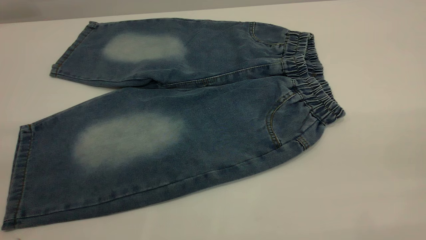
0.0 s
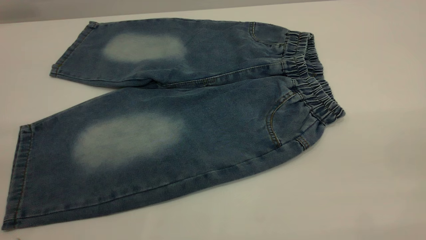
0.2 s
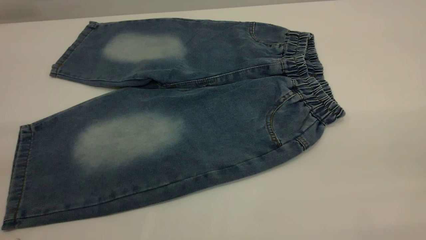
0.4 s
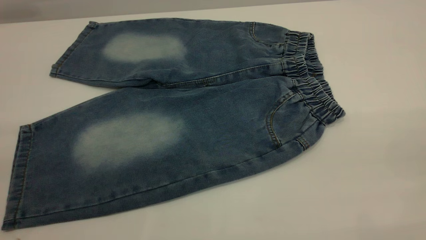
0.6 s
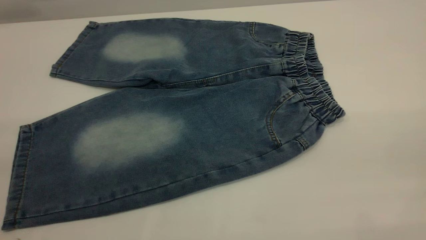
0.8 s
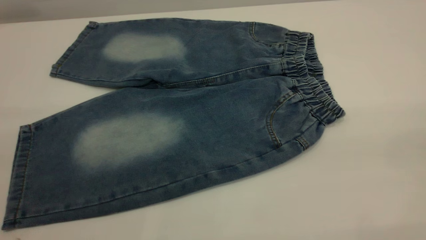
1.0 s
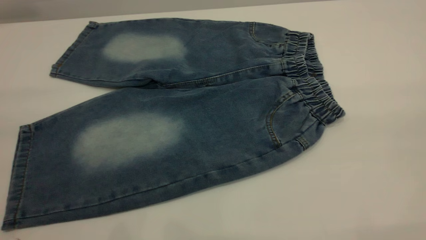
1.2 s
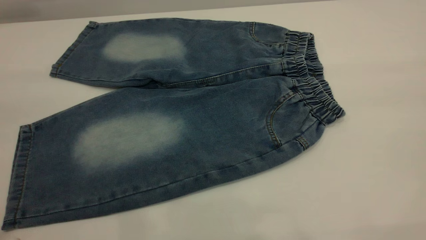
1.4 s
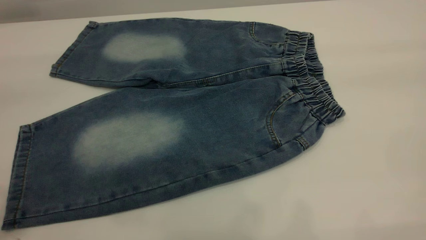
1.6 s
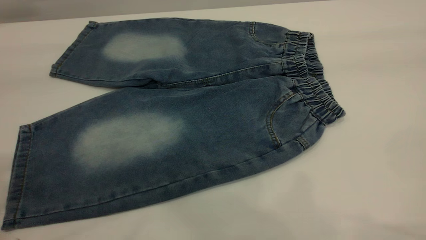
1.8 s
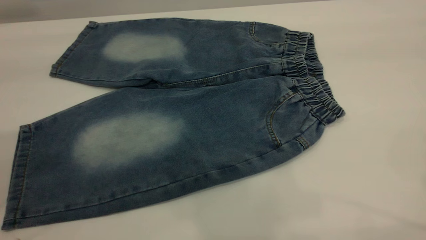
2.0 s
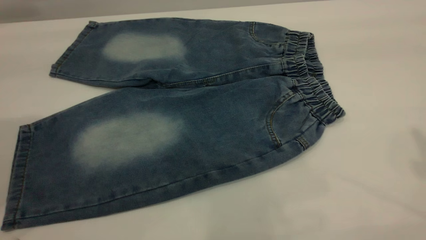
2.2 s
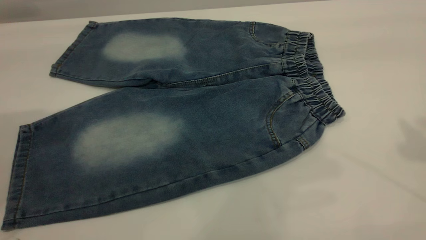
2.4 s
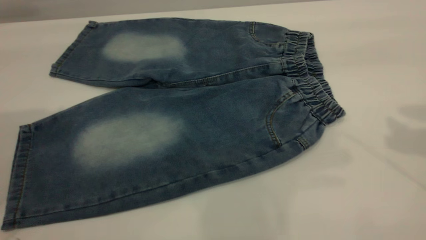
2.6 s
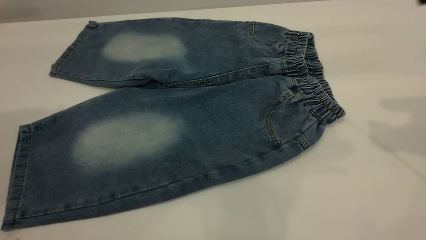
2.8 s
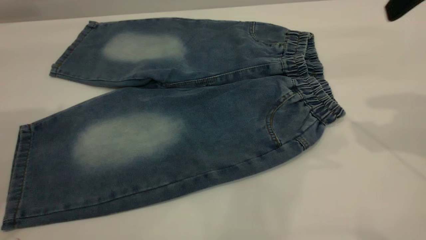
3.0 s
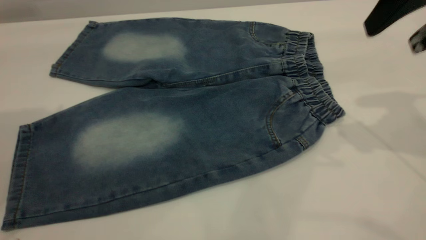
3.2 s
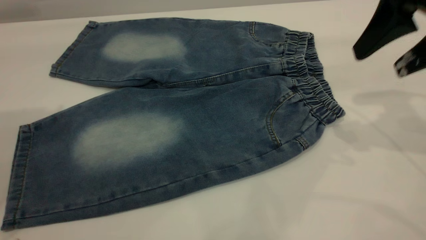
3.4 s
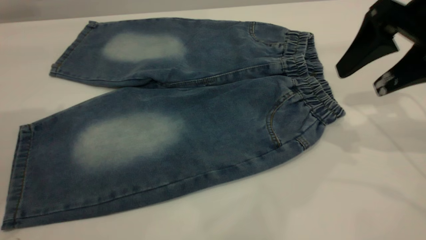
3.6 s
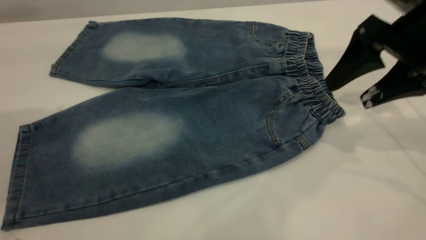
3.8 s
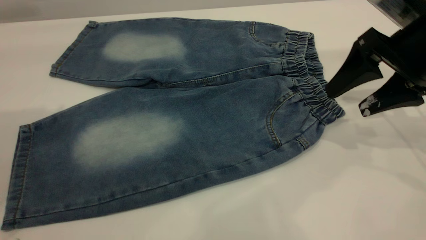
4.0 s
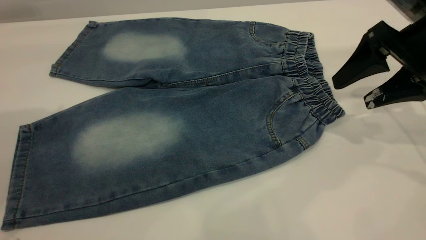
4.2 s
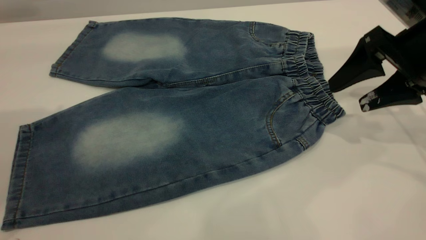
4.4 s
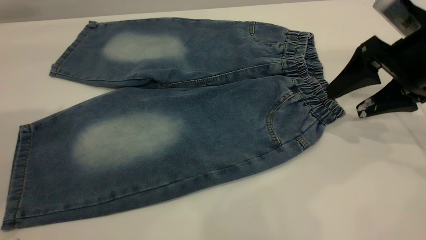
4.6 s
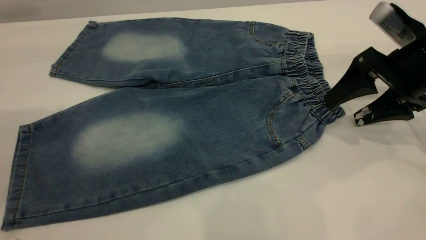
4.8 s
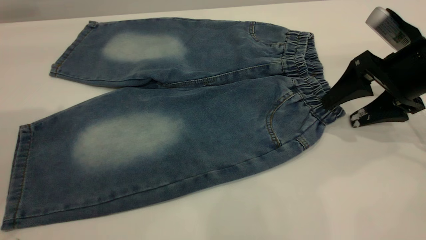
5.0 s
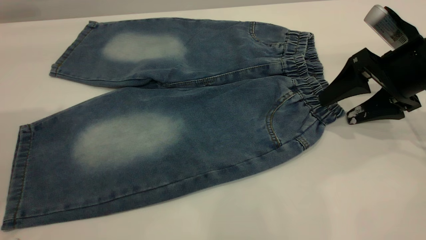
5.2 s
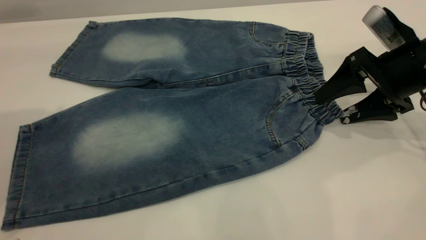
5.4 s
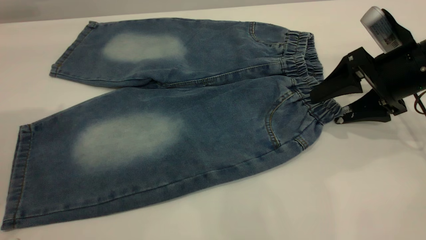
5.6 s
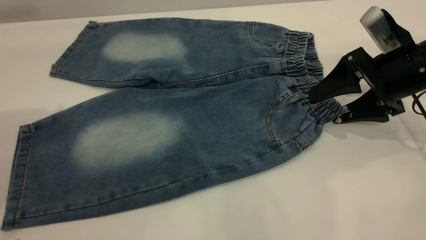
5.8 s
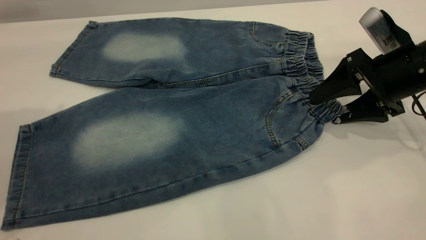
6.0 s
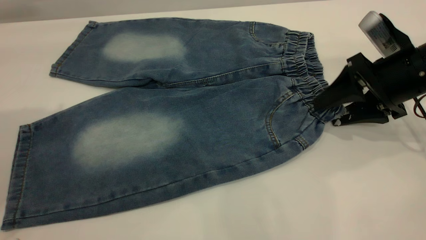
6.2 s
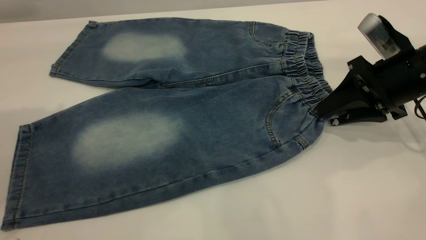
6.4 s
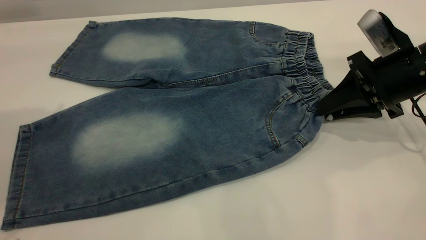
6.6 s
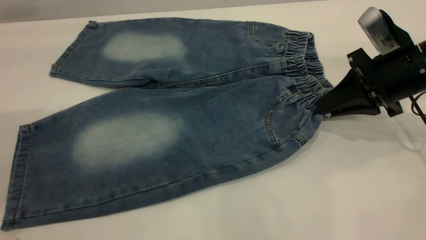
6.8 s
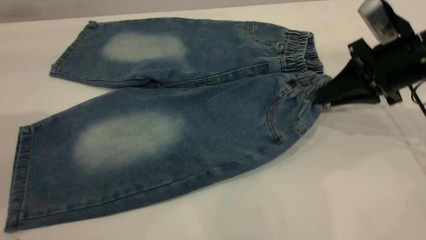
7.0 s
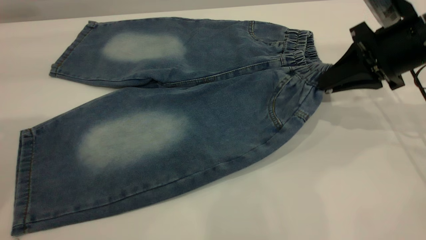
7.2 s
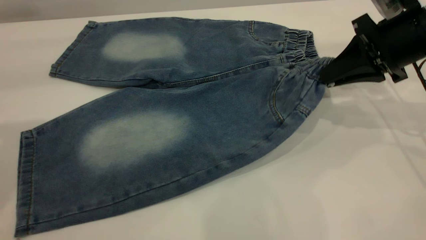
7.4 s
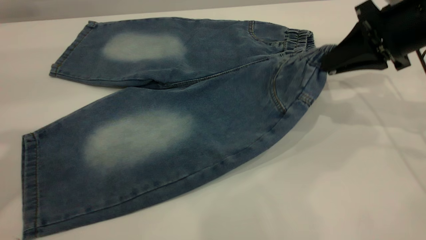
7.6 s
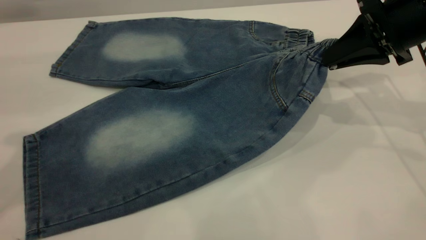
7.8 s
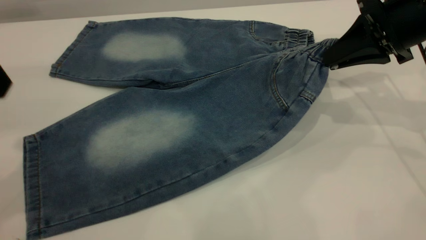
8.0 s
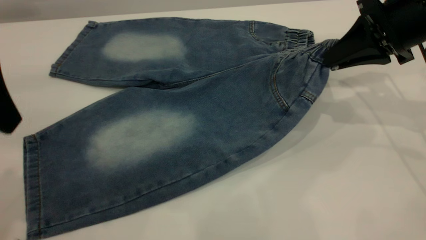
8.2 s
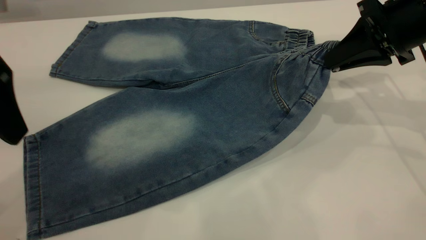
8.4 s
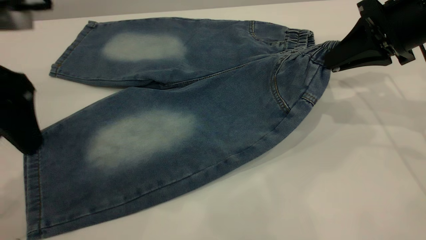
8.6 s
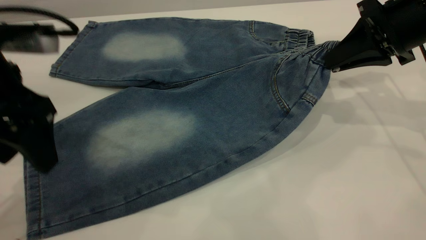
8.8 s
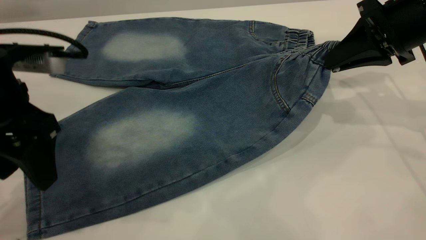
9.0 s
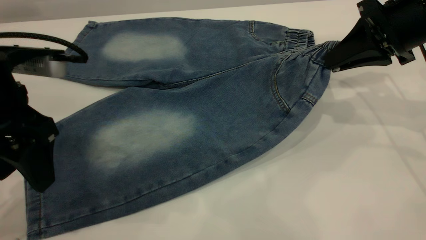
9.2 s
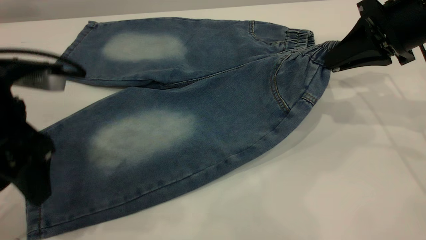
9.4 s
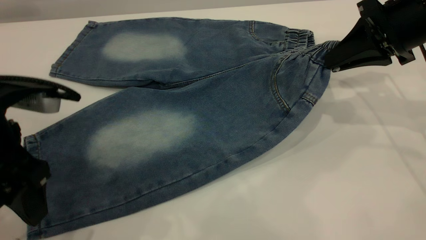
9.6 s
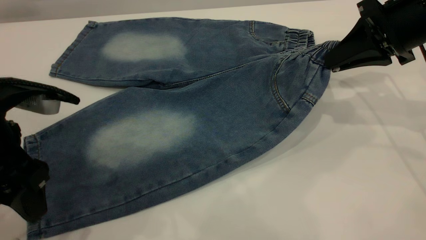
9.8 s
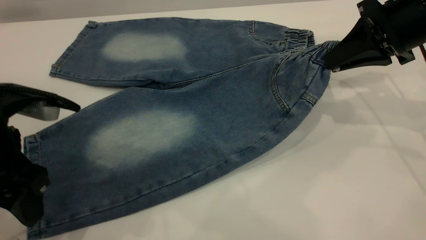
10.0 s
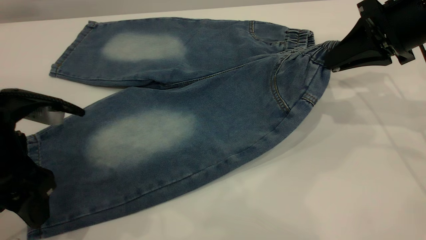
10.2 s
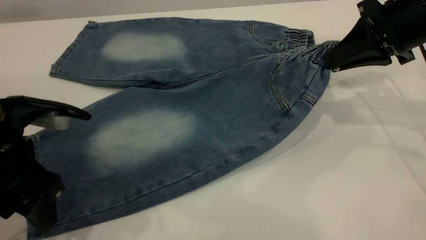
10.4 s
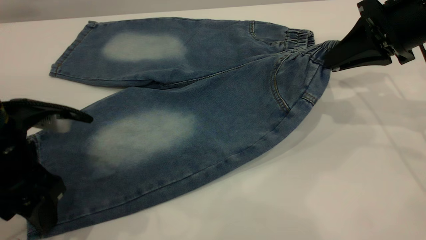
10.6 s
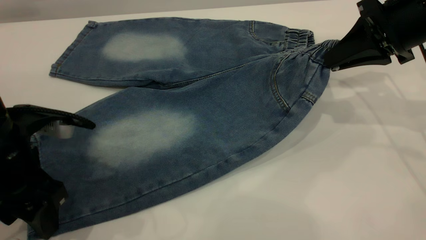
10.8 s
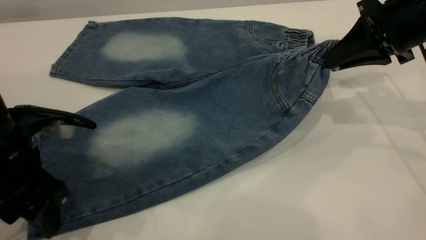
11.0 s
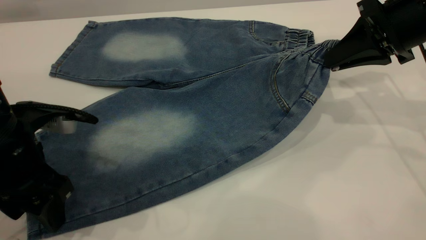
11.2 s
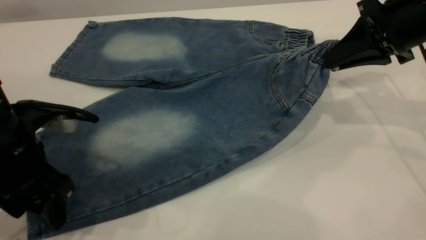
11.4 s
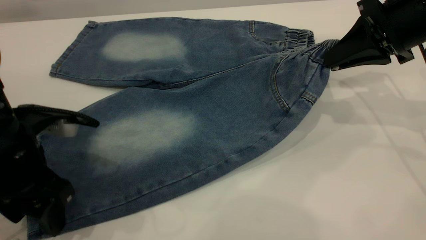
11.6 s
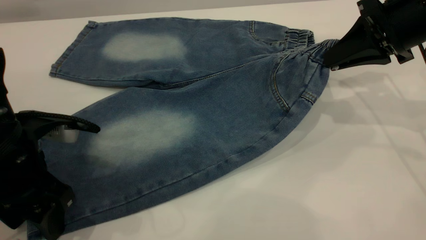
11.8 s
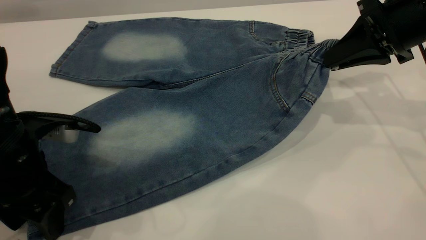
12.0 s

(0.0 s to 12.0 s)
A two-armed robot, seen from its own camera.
1.6 s - 3.0 s: The right gripper moves forward and downward, some 25 cm.
3.0 s - 4.4 s: The right gripper shifts approximately 15 cm downward.
4.4 s - 6.0 s: There are only small adjustments of the grippers.
6.0 s - 7.6 s: The left gripper shifts by roughly 5 cm. Meanwhile the right gripper heads upward, covering some 5 cm, and closes its fingers.
7.6 s - 9.0 s: The left gripper moves downward and to the right, roughly 15 cm.
9.0 s - 10.4 s: The left gripper is displaced downward by some 5 cm.
10.4 s - 12.0 s: The grippers make only small movements.

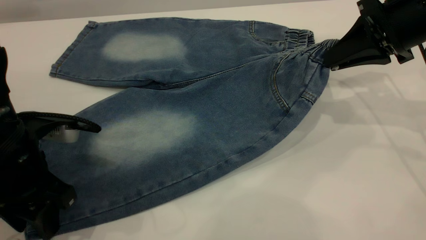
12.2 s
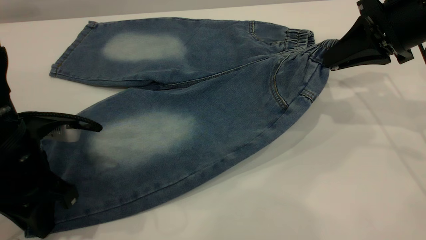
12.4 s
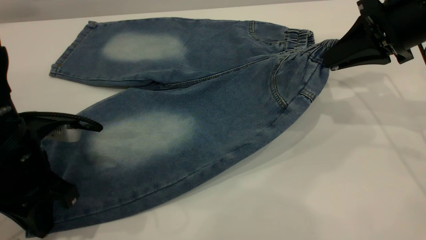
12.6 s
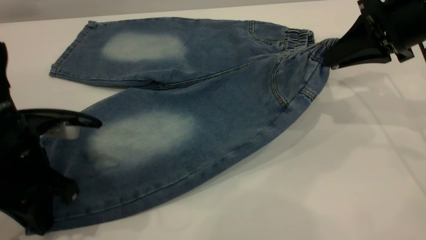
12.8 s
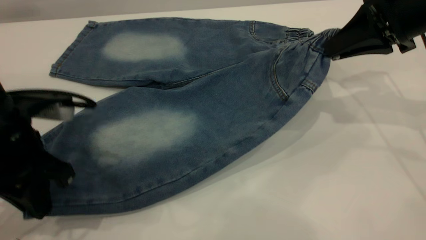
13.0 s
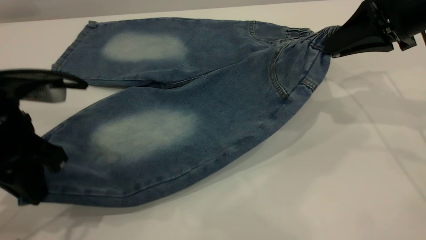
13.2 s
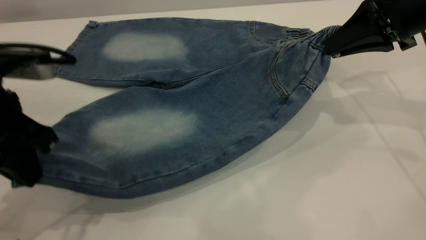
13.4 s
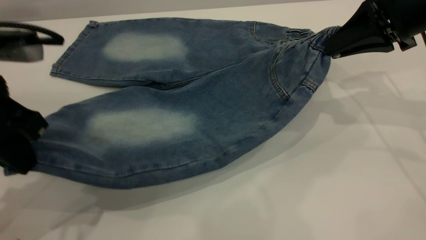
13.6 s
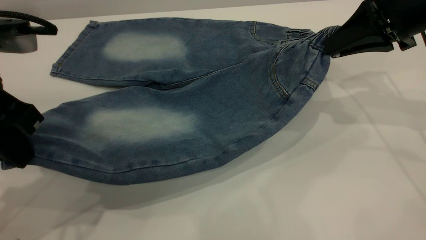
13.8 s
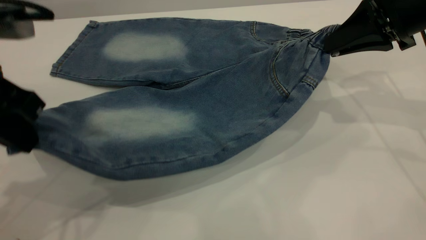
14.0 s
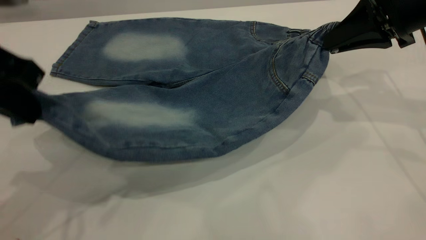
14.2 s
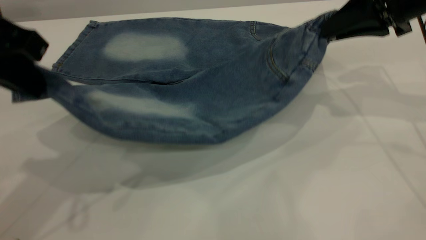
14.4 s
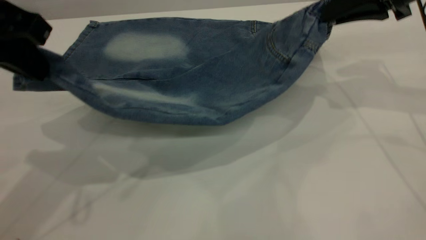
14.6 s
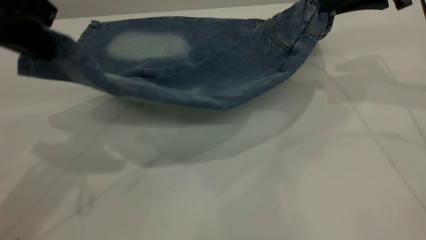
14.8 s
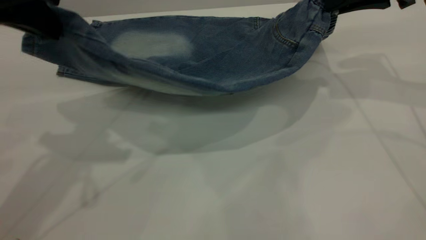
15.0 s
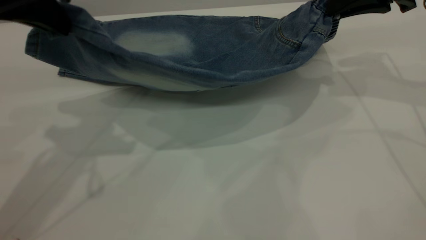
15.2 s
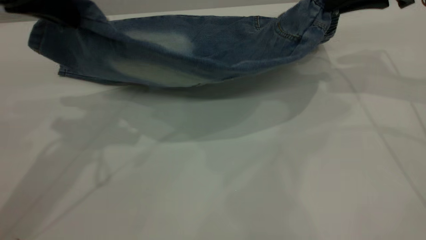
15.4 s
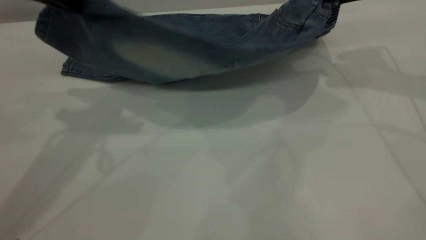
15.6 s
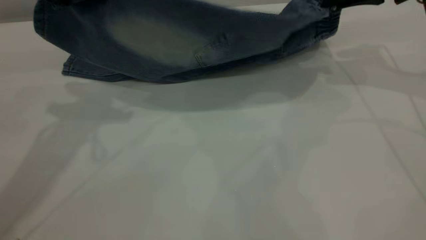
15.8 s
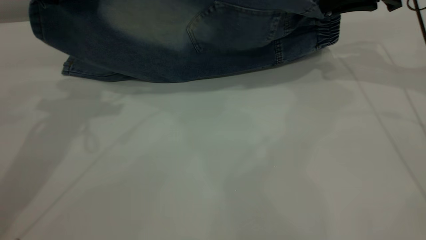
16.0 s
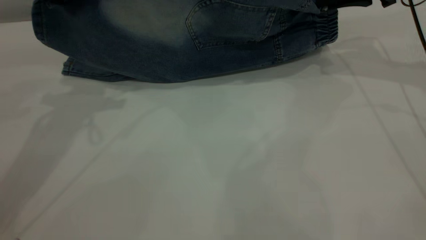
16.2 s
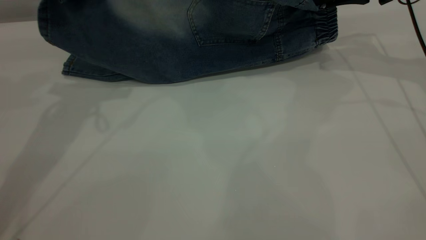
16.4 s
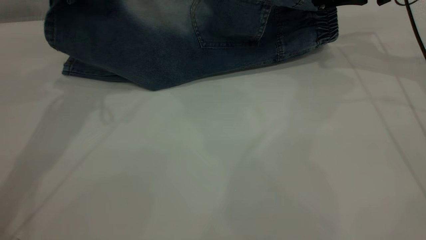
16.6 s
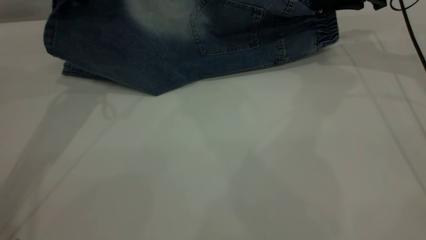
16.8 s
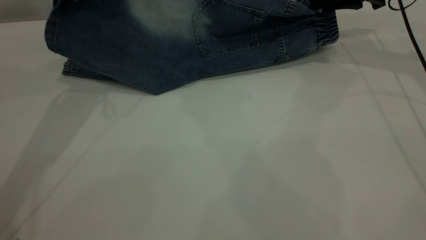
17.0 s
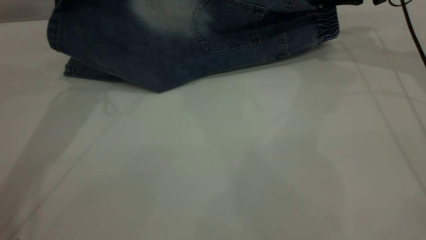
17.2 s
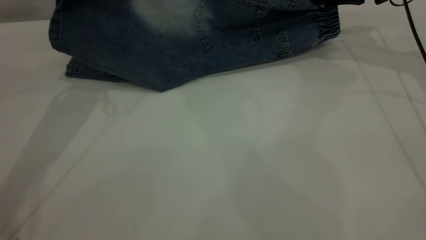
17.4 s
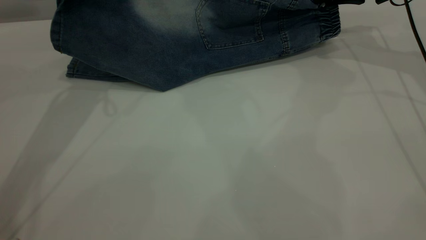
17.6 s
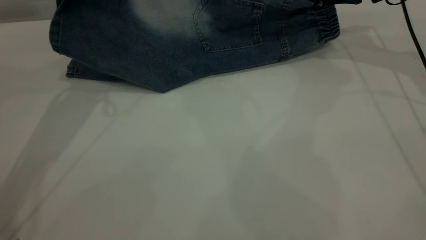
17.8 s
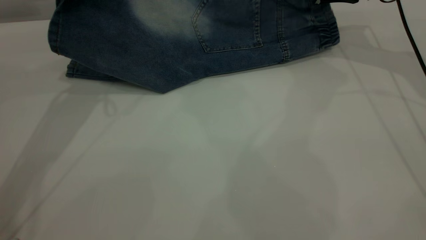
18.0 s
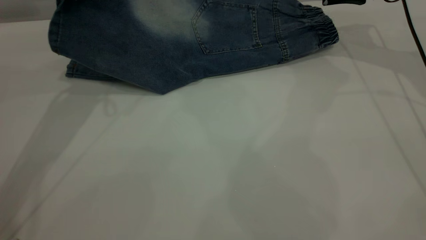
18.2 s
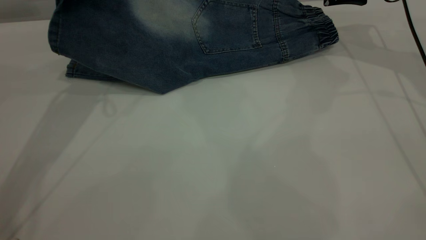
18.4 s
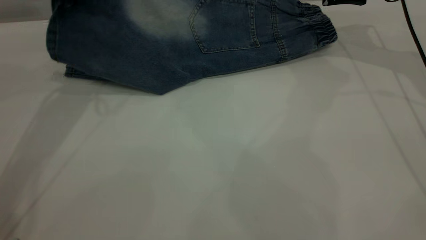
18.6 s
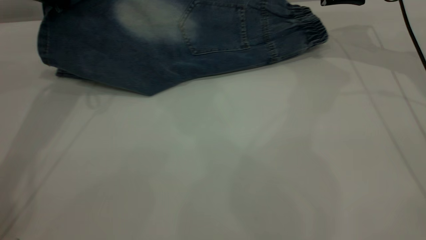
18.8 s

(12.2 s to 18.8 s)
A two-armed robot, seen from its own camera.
12.2 s - 13.8 s: The left gripper is displaced upward by roughly 10 cm, and closes.
13.8 s - 15.4 s: The right gripper goes roughly 5 cm forward; the left gripper travels forward and upward by approximately 10 cm.
15.4 s - 17.2 s: Both grippers travel together forward, roughly 10 cm.
17.2 s - 18.8 s: The right gripper opens up.
